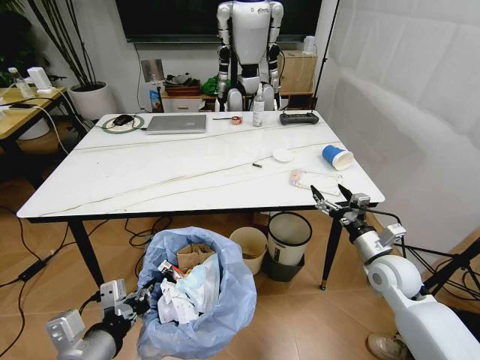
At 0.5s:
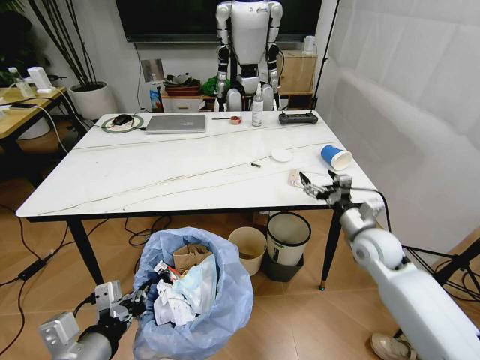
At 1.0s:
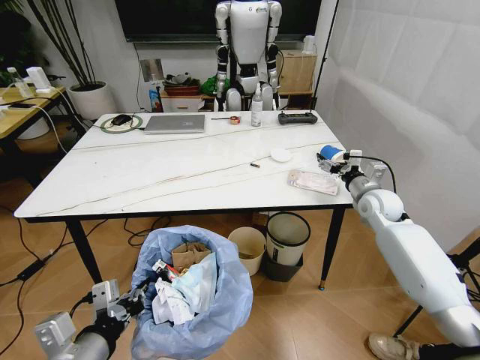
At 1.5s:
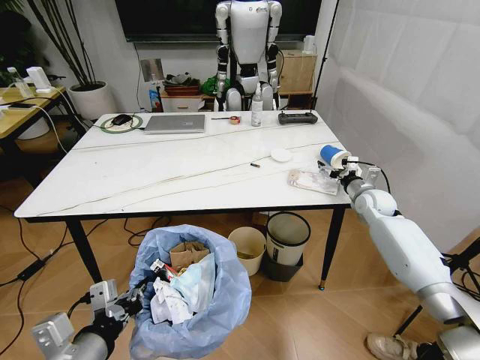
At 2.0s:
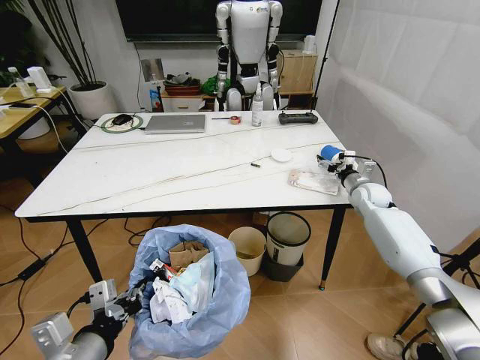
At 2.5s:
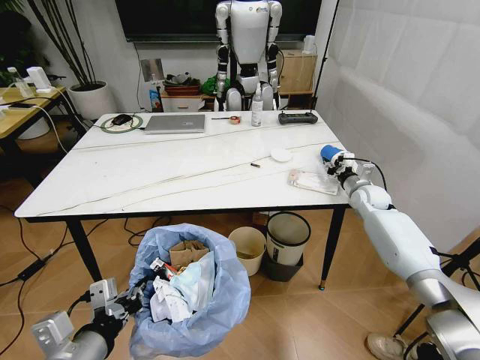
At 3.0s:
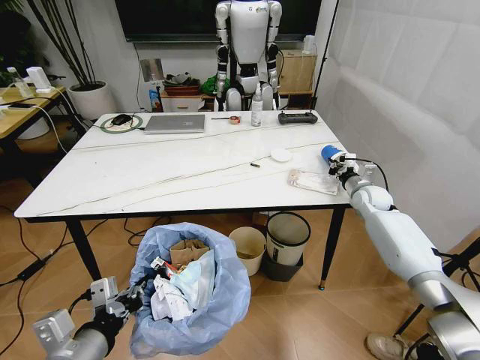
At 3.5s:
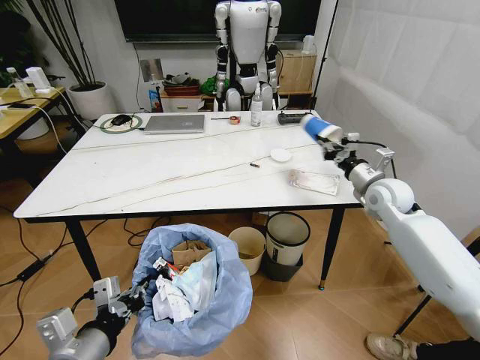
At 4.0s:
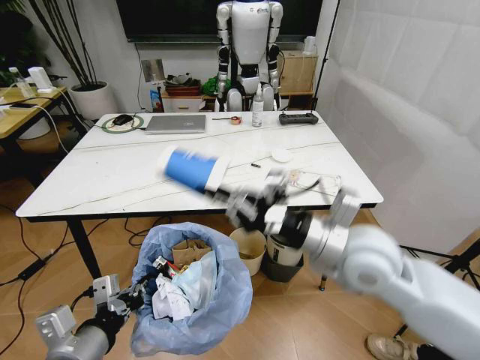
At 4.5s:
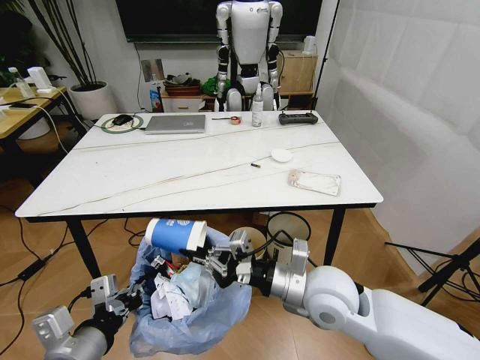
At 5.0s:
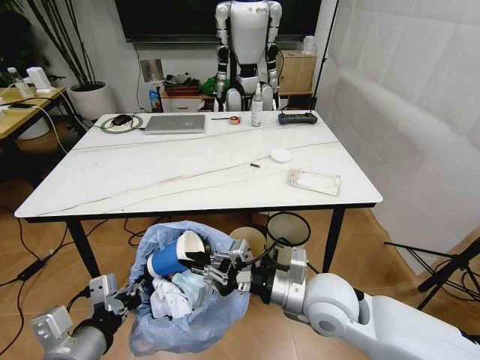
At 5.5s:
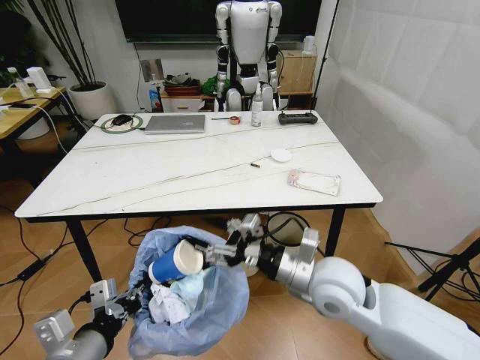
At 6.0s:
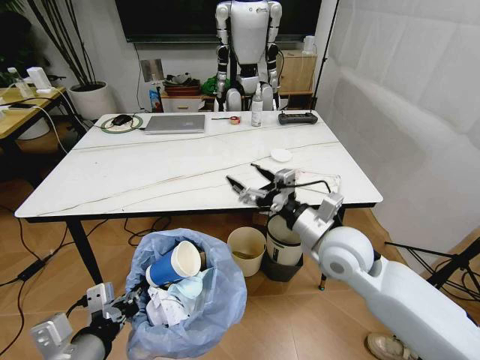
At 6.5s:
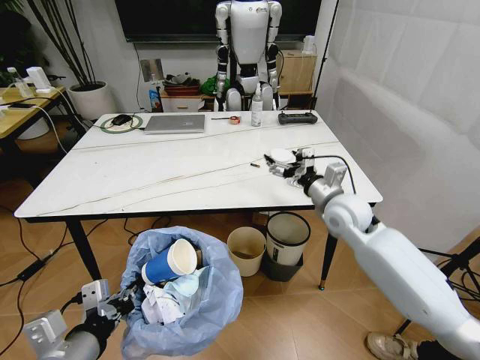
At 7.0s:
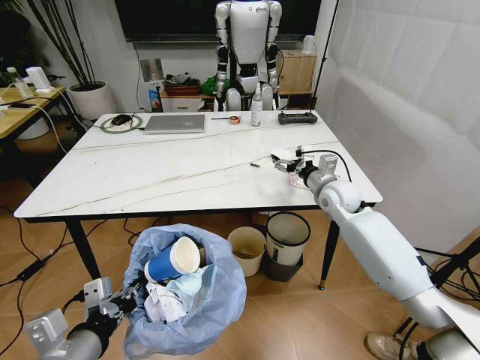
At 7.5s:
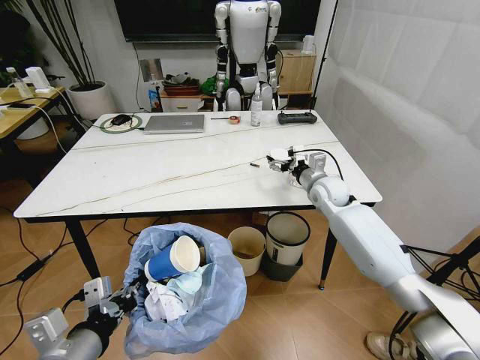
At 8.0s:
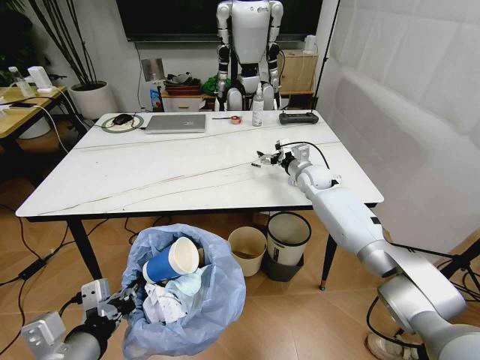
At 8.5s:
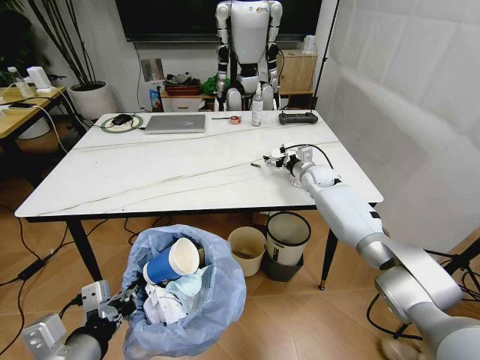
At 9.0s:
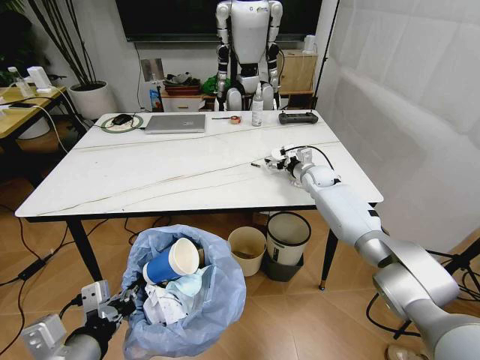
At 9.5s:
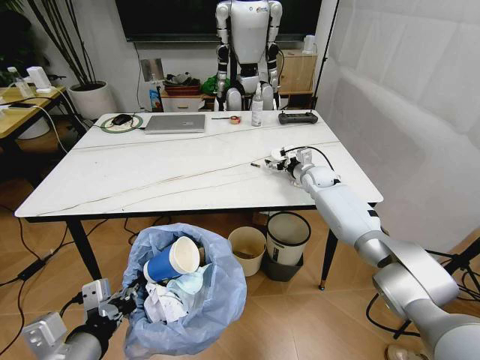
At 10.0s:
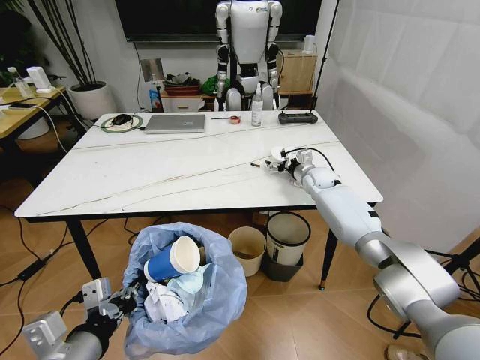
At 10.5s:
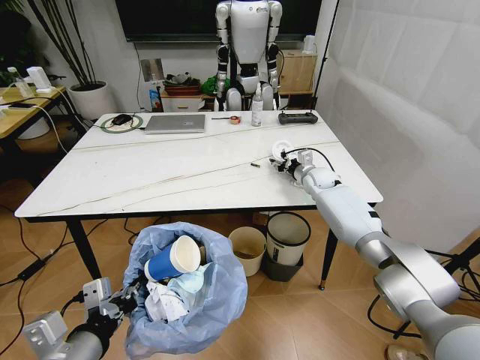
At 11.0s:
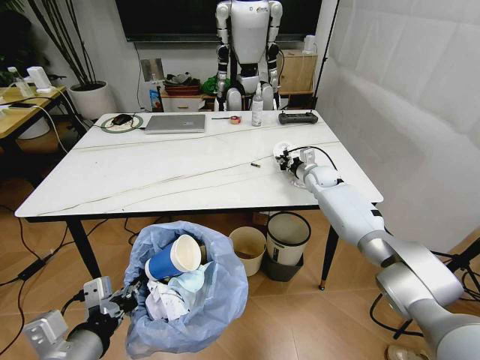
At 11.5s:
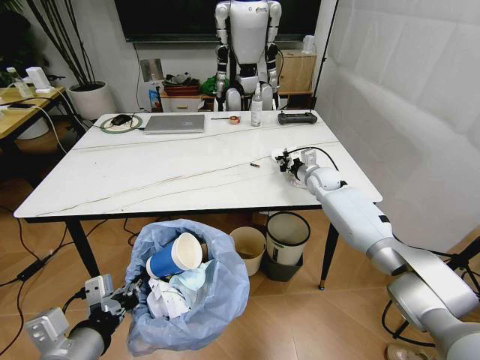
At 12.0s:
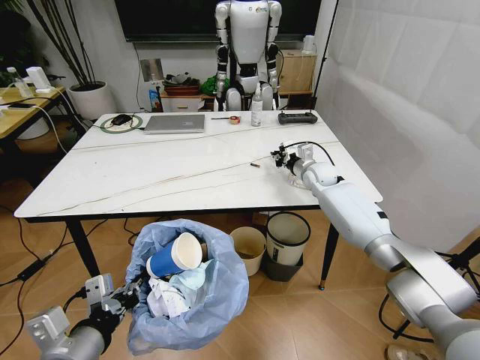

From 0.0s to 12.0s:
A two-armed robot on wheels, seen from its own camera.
Task of the whole recording: Pick up the trash bin and place the trash from the table into it.
From 0.0s to 2.0s: The right gripper is displaced forward by about 25 cm.
From 2.0s to 4.0s: The right gripper travels backward, to the left and upward by approximately 40 cm, and closes.
From 4.0s to 6.0s: The right gripper heads downward, covering approximately 5 cm, and opens.
From 6.0s to 8.0s: The right gripper heads forward, covering about 30 cm.
From 8.0s to 10.0s: The grippers move only a little.
From 10.0s to 12.0s: The right gripper closes.

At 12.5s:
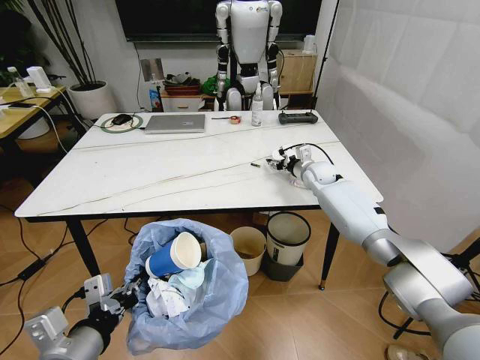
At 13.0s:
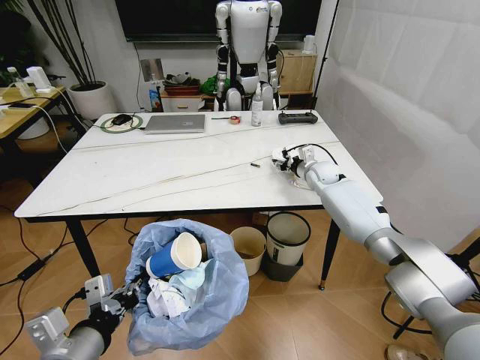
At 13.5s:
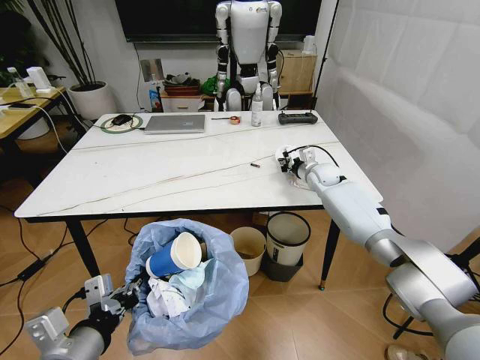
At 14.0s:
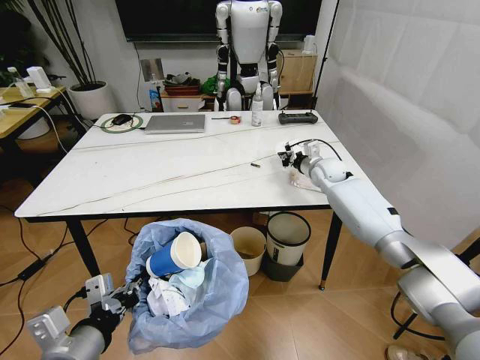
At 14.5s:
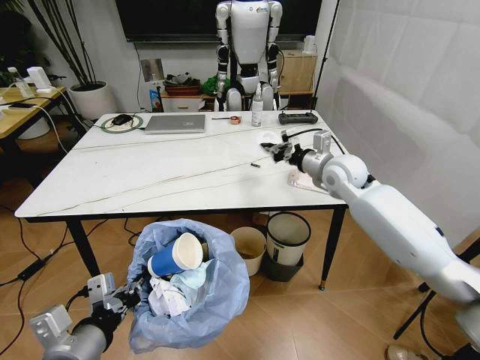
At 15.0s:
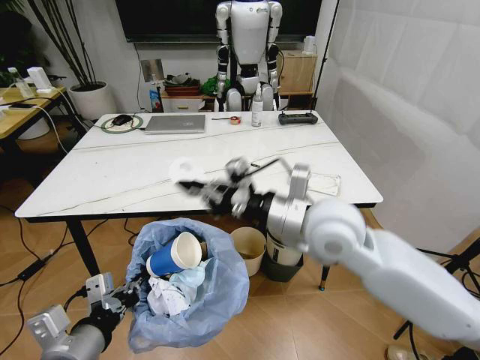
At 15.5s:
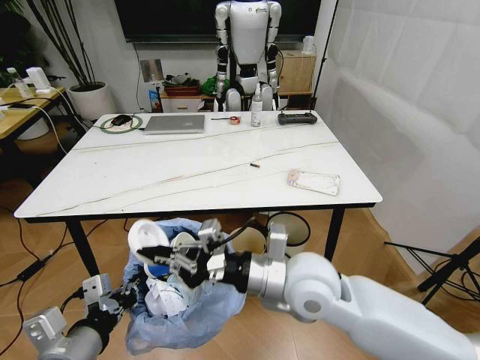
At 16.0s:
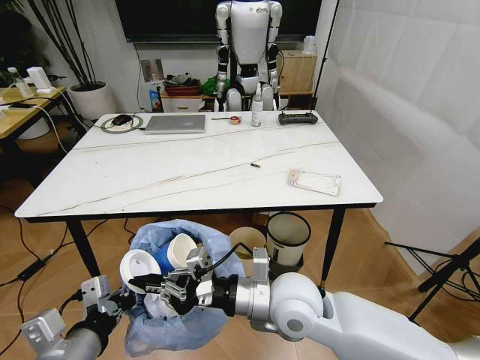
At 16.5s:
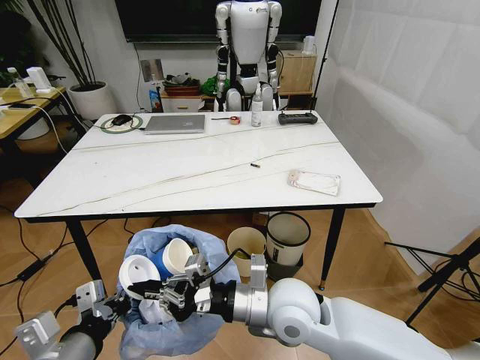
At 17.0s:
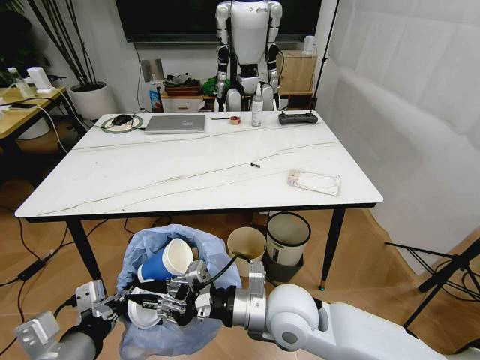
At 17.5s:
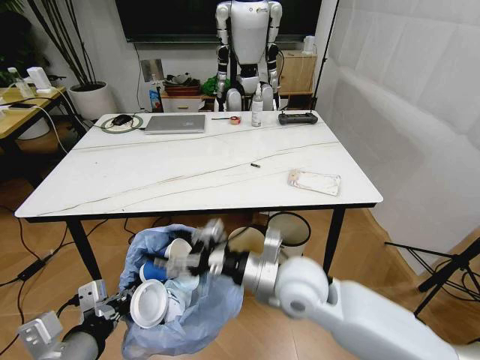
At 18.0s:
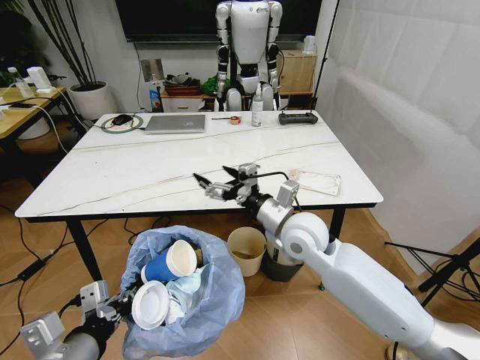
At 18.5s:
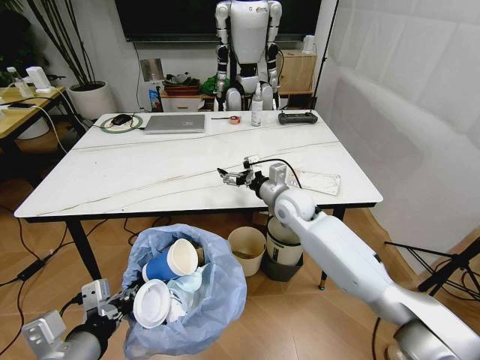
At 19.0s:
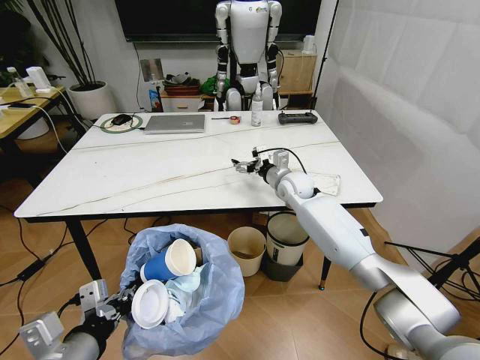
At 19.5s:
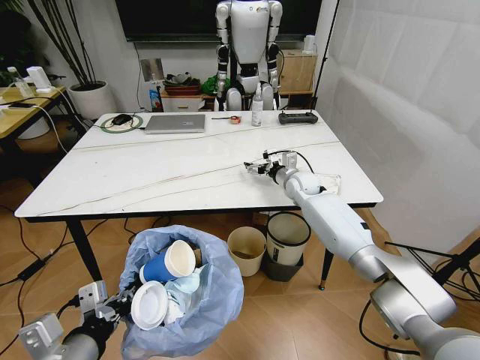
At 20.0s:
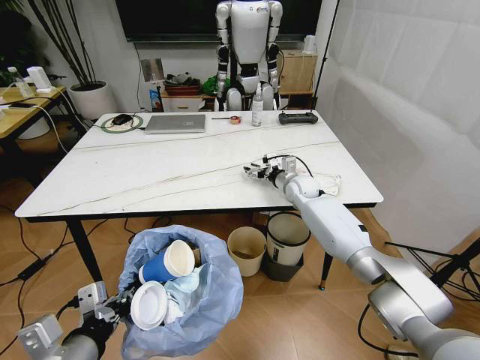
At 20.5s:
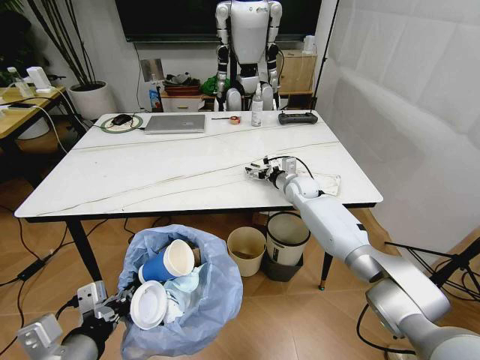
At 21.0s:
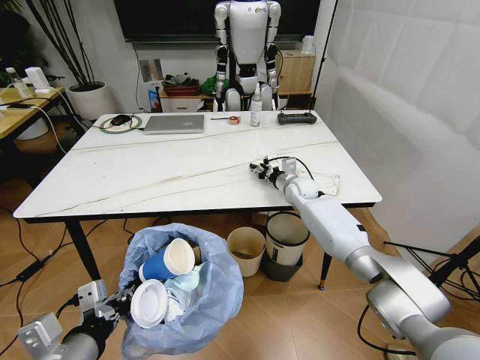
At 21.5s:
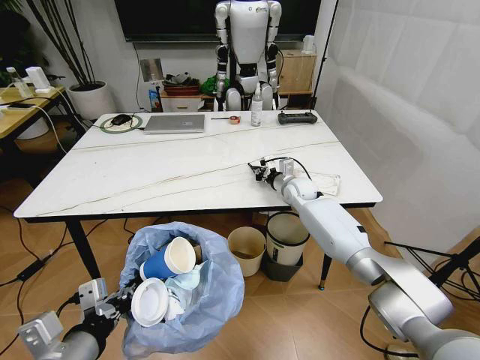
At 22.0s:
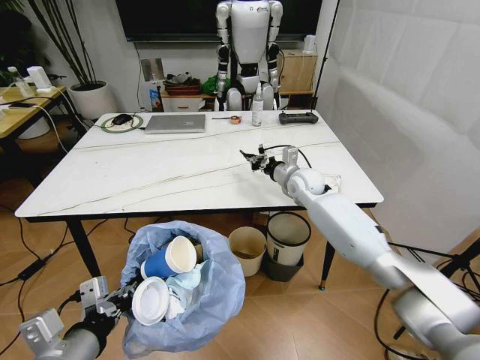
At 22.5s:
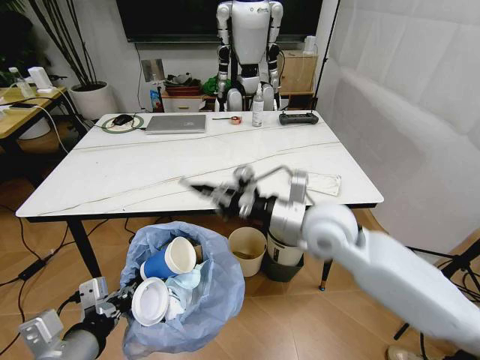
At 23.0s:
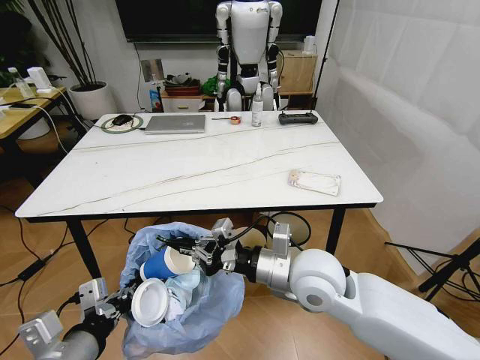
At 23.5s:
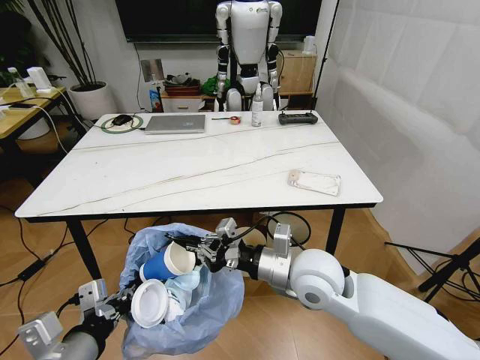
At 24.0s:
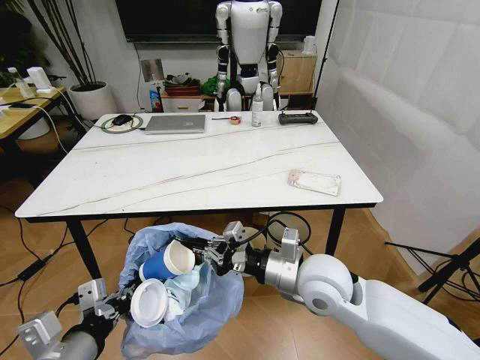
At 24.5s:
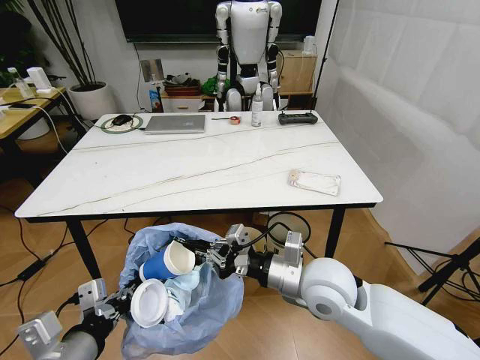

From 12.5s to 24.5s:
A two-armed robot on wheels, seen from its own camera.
Task of the whole recording: Pick up the trash bin and place the trash from the table into it.
From 12.5s to 14.5s: The right gripper travels backward and upward by about 15 cm, and closes.
From 14.5s to 16.5s: The right gripper travels backward and to the left by about 30 cm.
From 16.5s to 18.5s: The right gripper goes roughly 25 cm forward, and opens up.
From 18.5s to 20.5s: The right gripper heads forward, to the right and downward, covering approximately 15 cm.
From 20.5s to 22.5s: The right gripper shifts approximately 30 cm backward and upward, and closes up.
From 22.5s to 24.5s: The right gripper goes roughly 10 cm backward and downward.

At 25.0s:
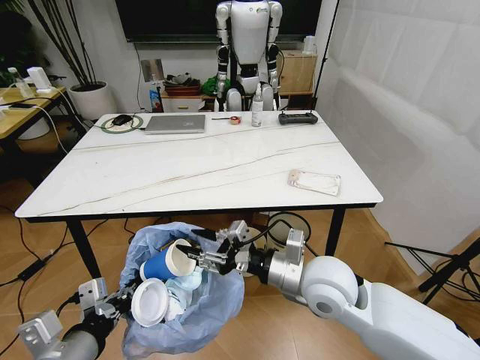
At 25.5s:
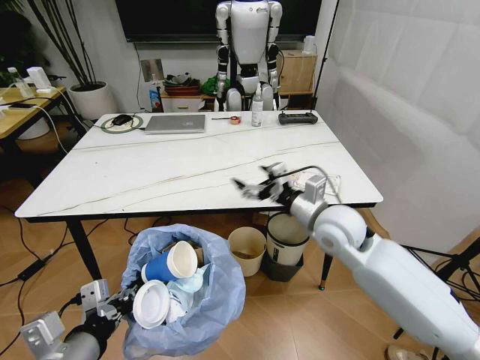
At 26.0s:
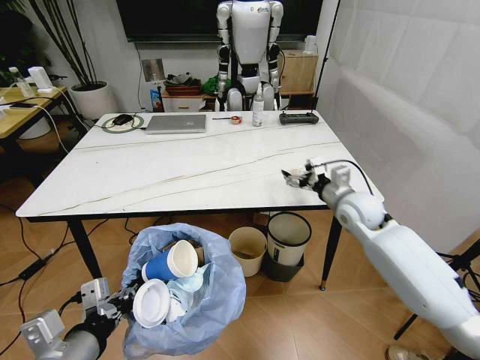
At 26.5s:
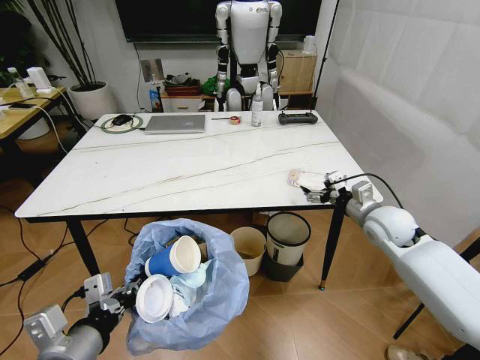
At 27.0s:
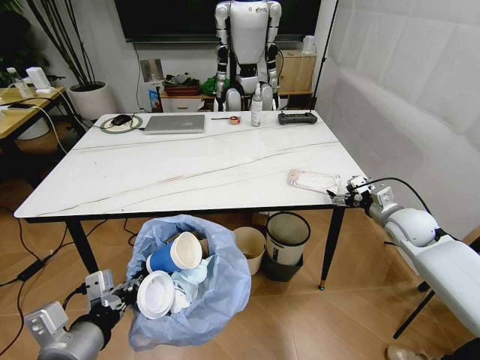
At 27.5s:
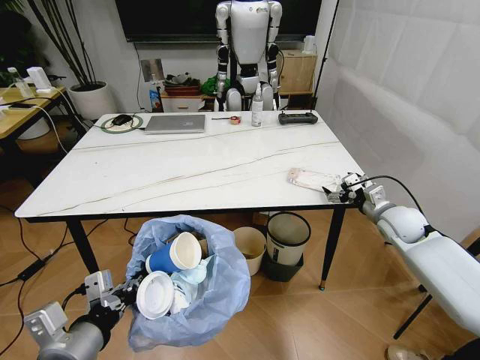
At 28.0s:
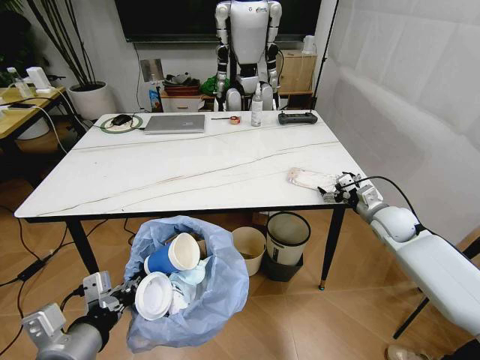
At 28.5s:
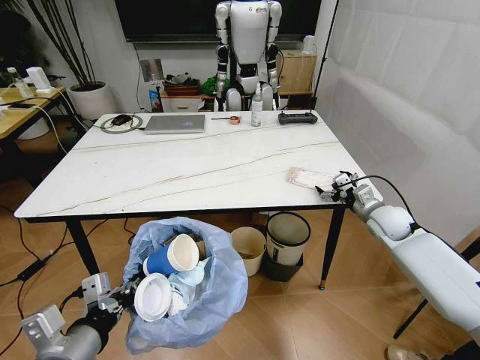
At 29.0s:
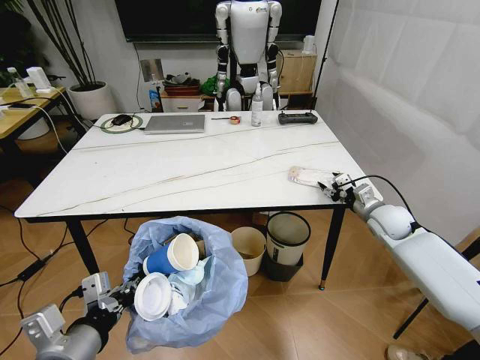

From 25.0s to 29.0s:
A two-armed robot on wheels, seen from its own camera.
Task of the whole recording: Pick up the trash bin and place the trash from the table into it.
From 25.0s to 27.0s: The right gripper travels to the right and forward by approximately 30 cm, and opens.
From 27.0s to 29.0s: The right gripper closes its fingers.
